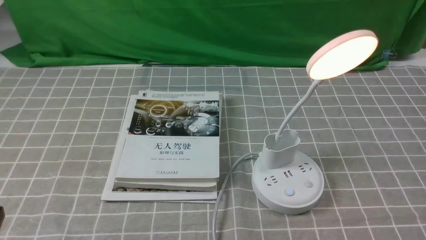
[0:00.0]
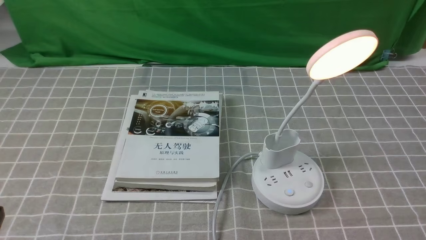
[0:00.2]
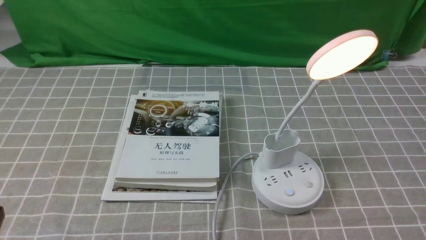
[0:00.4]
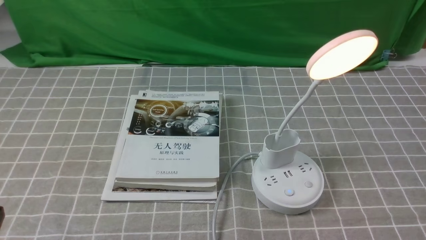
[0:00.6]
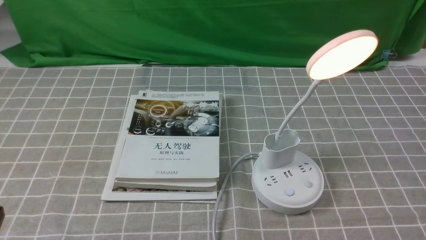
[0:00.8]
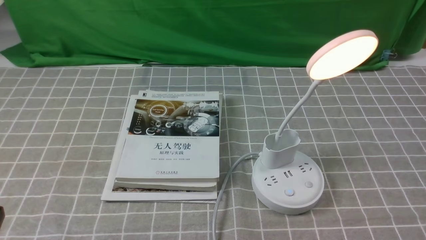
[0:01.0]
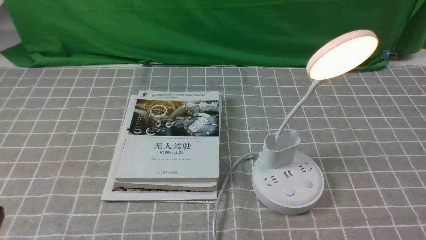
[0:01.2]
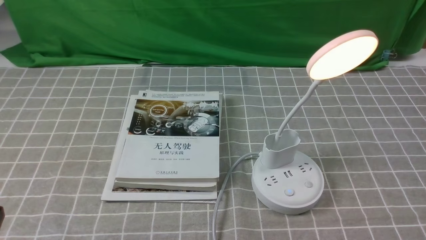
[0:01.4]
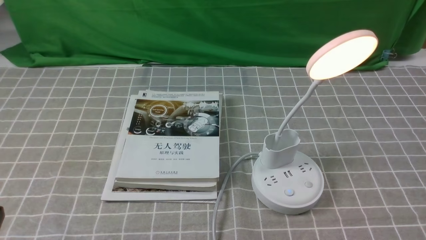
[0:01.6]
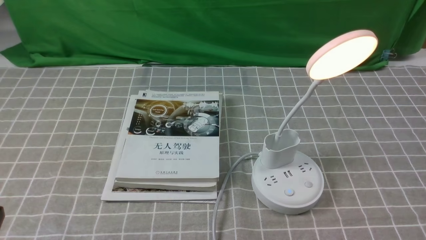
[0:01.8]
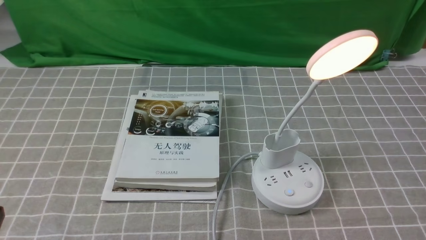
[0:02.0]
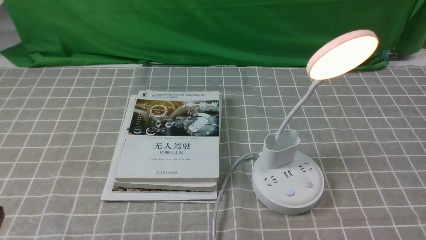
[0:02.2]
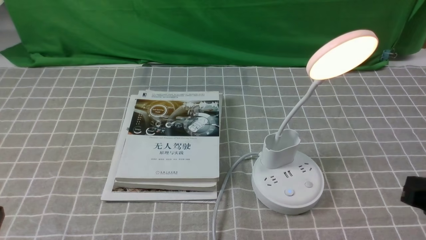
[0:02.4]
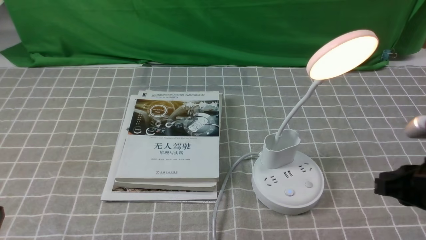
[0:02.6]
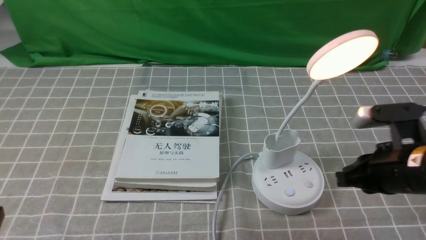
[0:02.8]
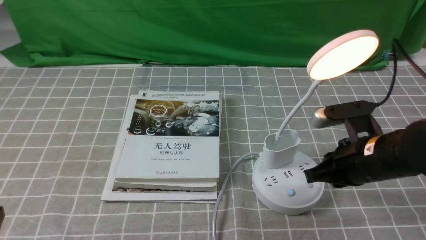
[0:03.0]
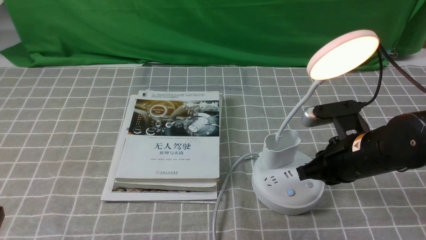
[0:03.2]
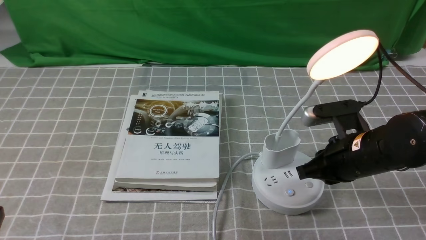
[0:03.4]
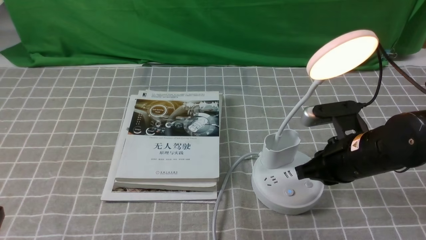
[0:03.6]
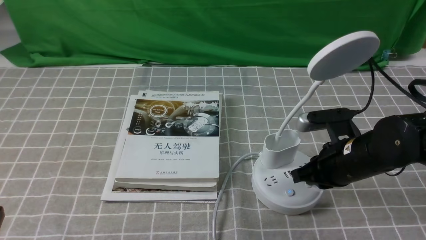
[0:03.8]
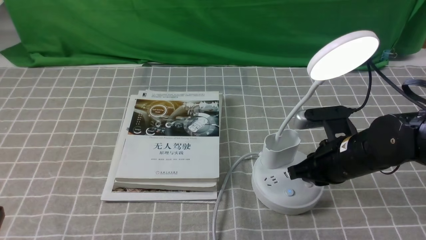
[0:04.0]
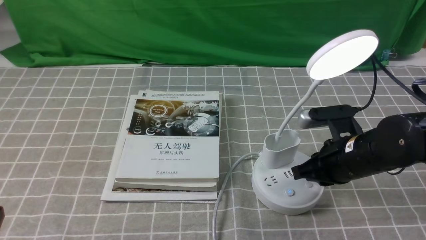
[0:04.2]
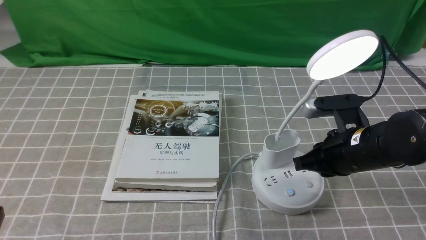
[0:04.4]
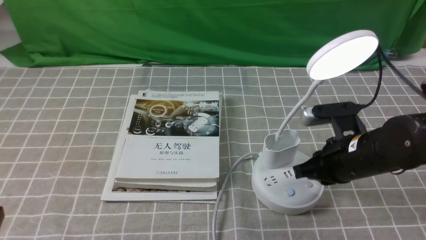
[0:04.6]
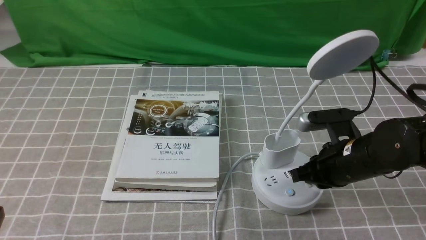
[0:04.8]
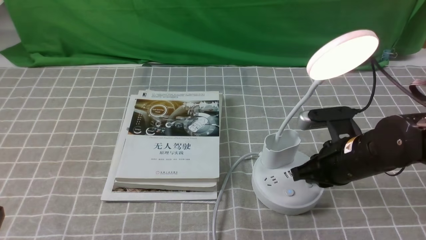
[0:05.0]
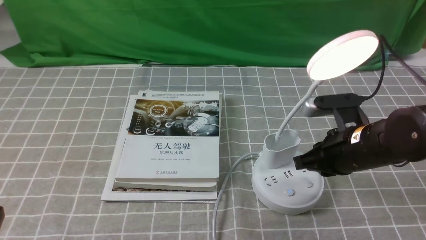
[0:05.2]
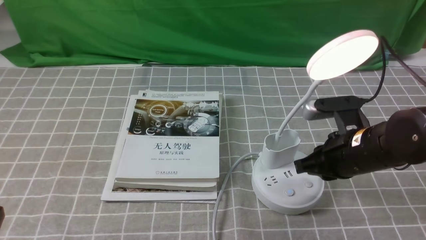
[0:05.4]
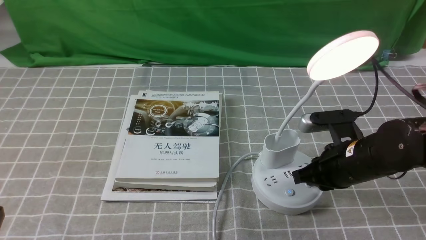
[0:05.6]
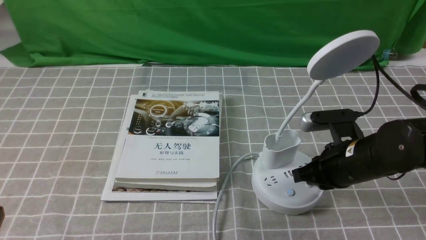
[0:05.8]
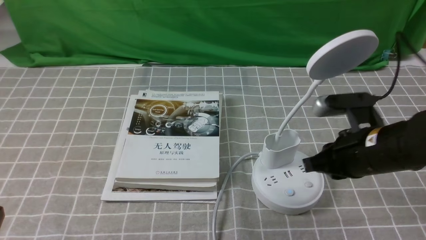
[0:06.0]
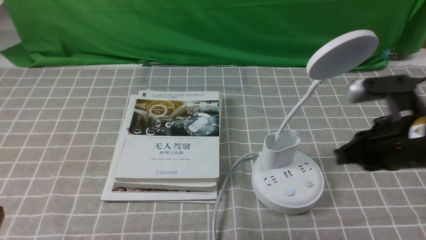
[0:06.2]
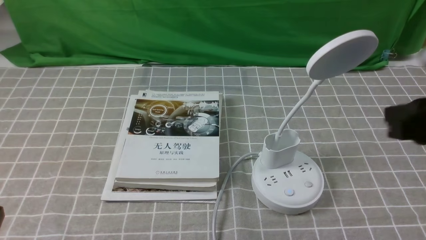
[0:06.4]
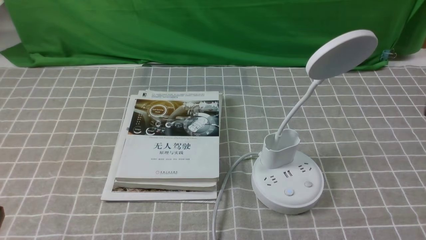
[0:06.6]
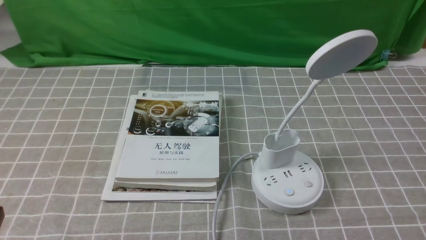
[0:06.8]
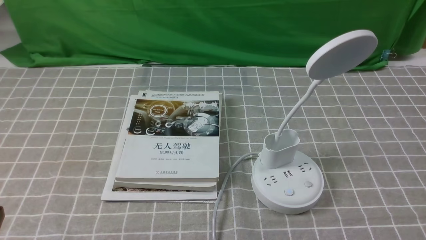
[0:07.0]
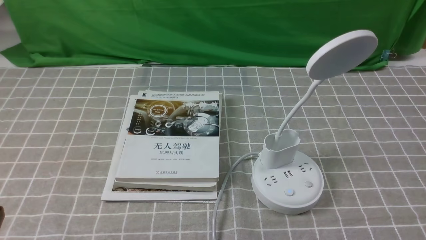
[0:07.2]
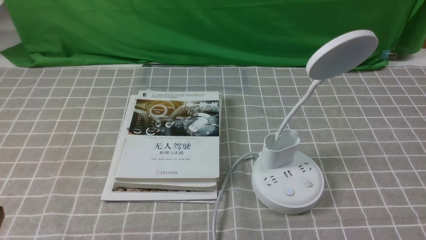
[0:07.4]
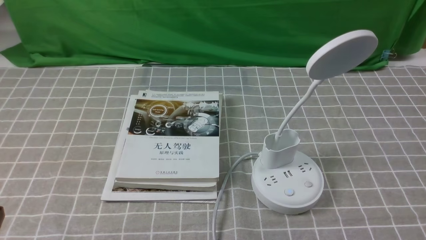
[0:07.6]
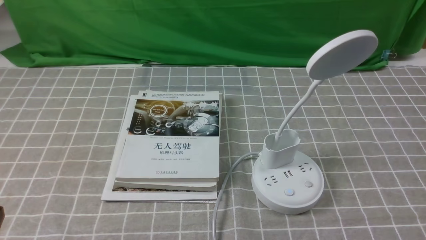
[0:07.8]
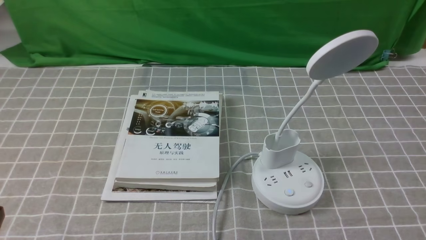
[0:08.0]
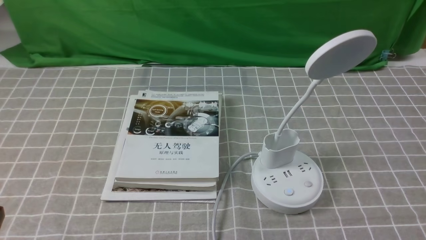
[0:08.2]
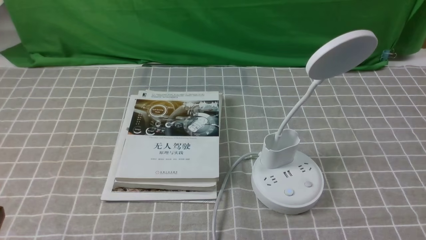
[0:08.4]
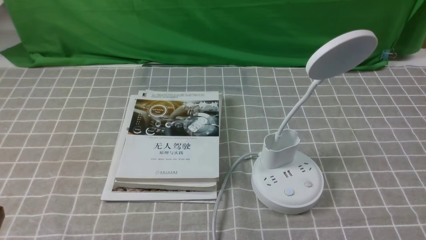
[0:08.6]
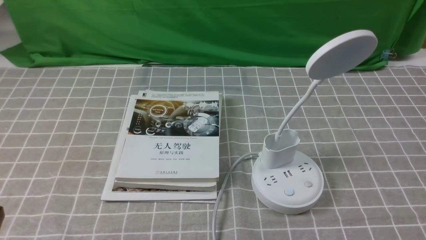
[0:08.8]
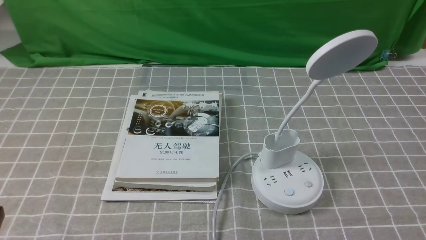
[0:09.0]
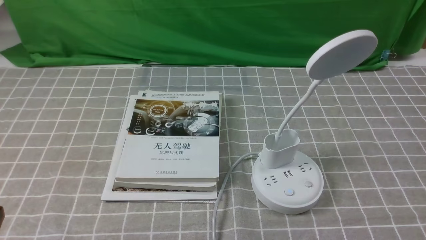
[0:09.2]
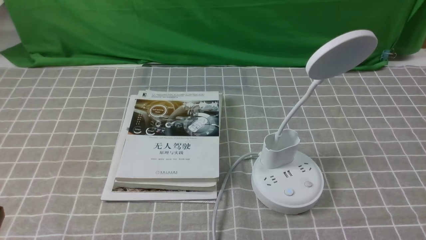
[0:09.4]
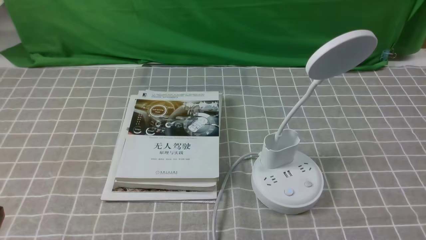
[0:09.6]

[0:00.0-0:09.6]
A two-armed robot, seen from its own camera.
Task of the whole recording: turn off the desk lamp on the grey coffee tablecloth by hand.
Step, 0:00.0 to 0:05.8: use the right arm to press the button switch on the lamp holder.
0:01.6 to 0:03.2: The right gripper travels forward, to the left and downward by roughly 25 cm.
0:03.2 to 0:04.8: The grippers move only a little.
0:04.8 to 0:06.4: The right gripper travels upward, backward and to the right by approximately 20 cm.
0:06.4 to 0:08.0: The right gripper is displaced backward and downward by approximately 15 cm, and closes its fingers.
